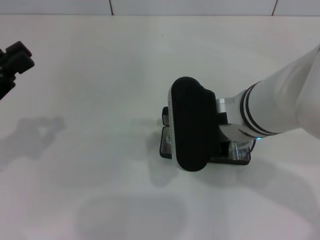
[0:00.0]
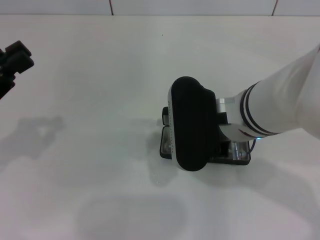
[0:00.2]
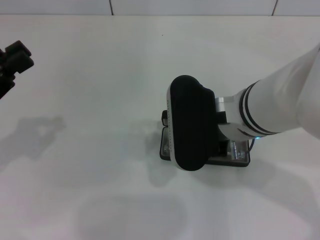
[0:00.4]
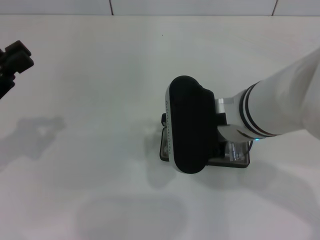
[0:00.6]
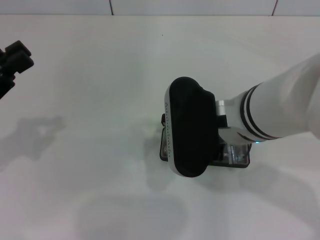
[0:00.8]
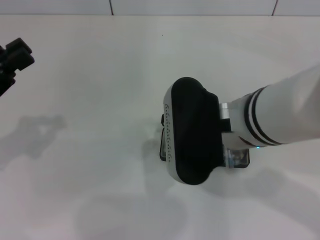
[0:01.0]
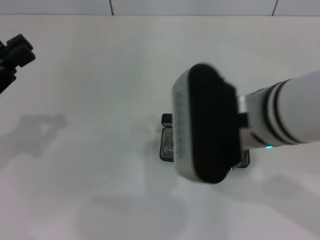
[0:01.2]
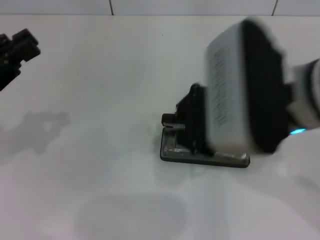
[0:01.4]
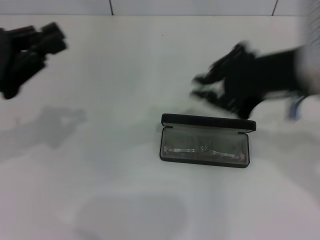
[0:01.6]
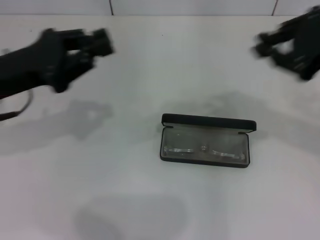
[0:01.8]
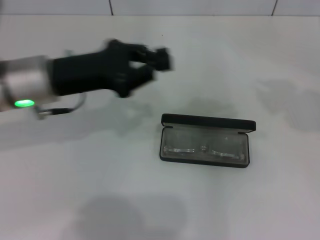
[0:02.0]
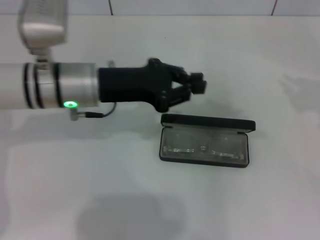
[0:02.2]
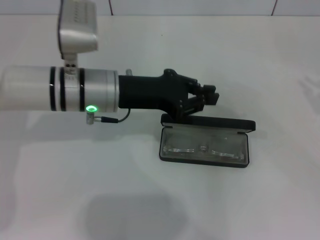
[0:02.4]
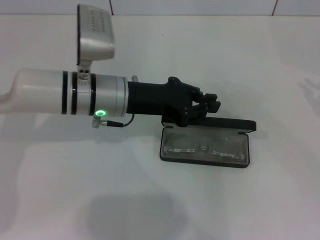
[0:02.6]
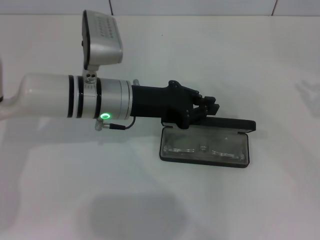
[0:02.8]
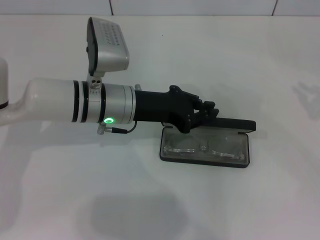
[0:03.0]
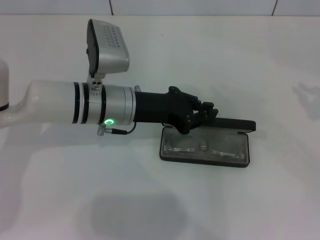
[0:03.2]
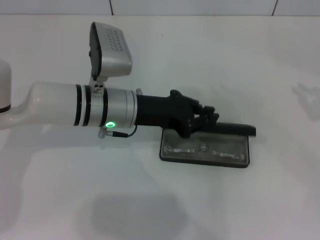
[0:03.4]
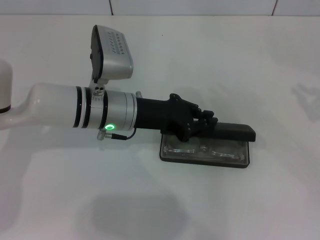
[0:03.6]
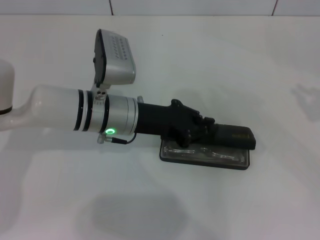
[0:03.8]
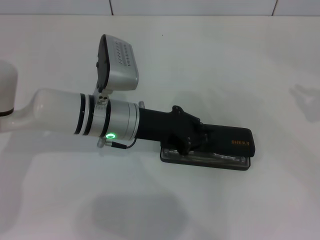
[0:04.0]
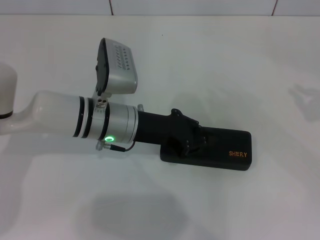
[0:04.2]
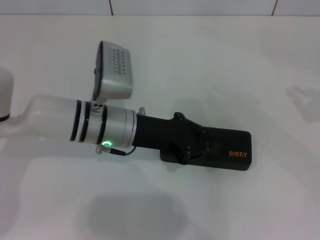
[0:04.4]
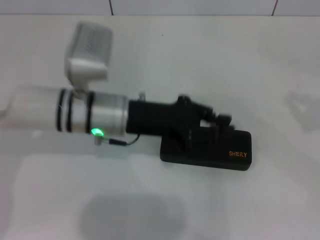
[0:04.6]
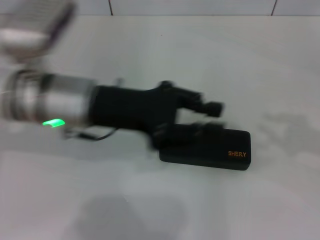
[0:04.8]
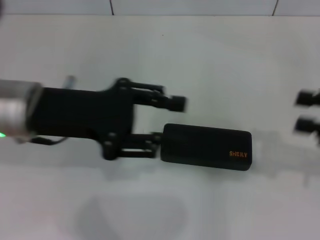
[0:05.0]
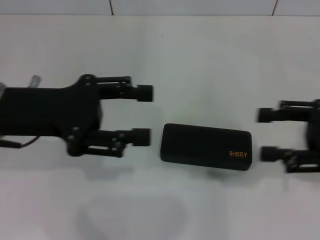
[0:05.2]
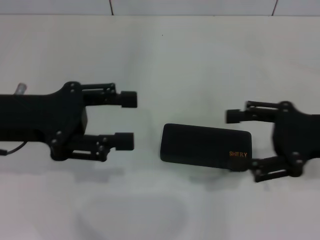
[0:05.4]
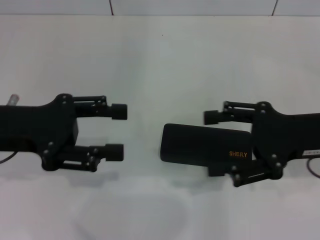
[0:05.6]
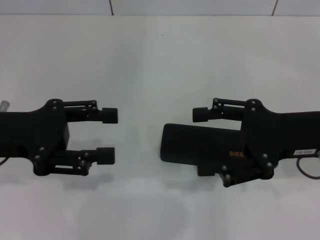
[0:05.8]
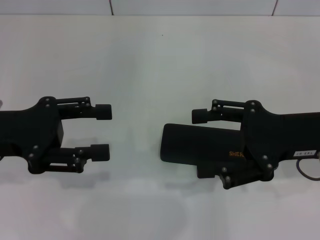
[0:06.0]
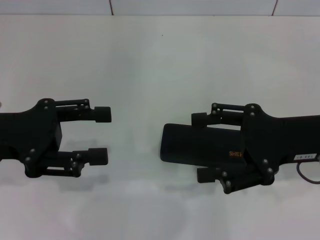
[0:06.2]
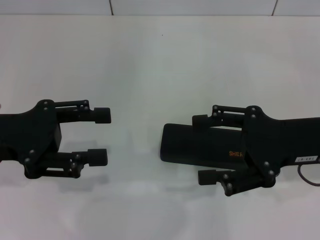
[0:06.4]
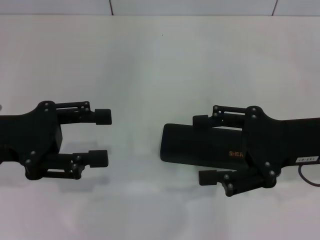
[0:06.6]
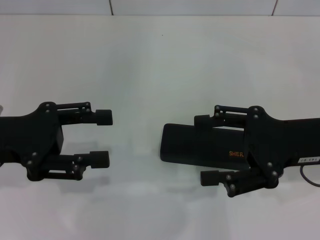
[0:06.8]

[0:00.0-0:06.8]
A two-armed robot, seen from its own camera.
Step, 0:01.2 to 0:04.2: Close the glasses case with your left hand.
0:00.0 to 0:01.4: The right gripper heads upward, covering about 5 cm.
0:01.4 to 0:02.8: The left gripper moves to the right and forward, some 25 cm; the right gripper goes approximately 30 cm to the right.
0:02.8 to 0:04.0: There are only small adjustments of the grippers.
0:04.0 to 0:05.4: The left gripper is displaced to the left, upward and backward by approximately 20 cm, and opens its fingers, while the right gripper shifts approximately 15 cm to the left, and opens up.
0:05.4 to 0:06.8: There are only small adjustments of the grippers.
